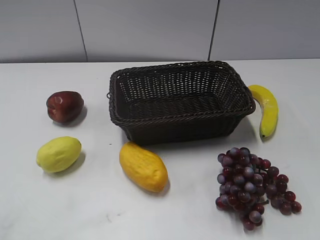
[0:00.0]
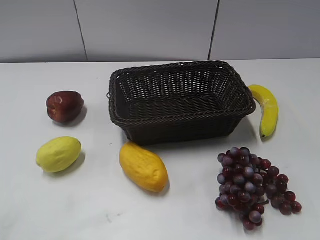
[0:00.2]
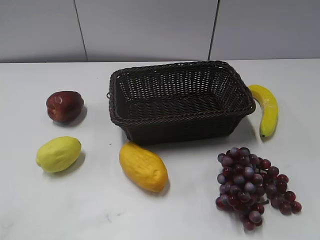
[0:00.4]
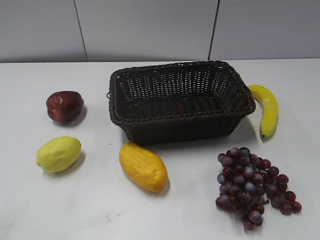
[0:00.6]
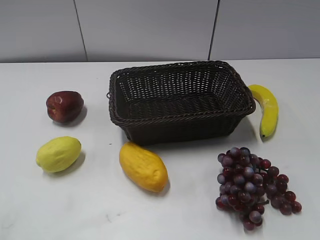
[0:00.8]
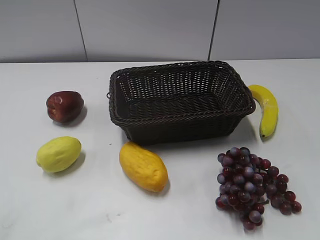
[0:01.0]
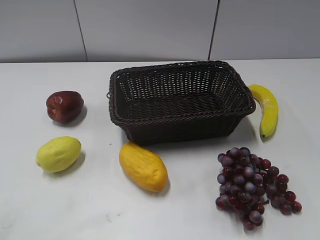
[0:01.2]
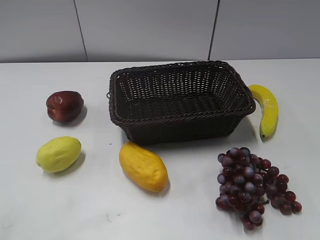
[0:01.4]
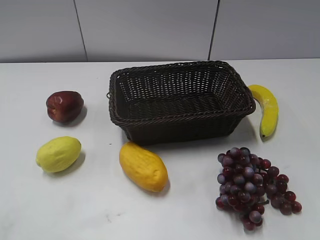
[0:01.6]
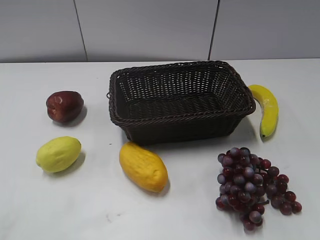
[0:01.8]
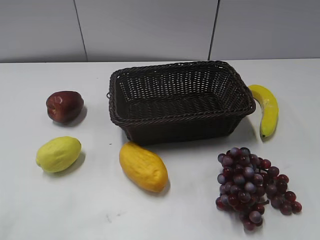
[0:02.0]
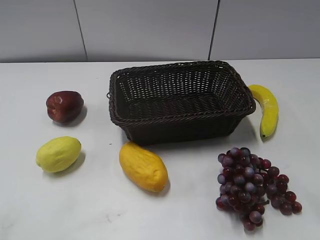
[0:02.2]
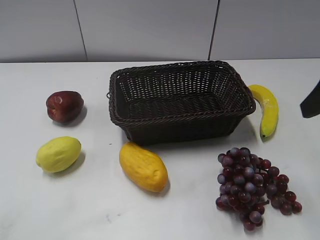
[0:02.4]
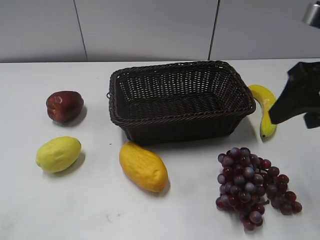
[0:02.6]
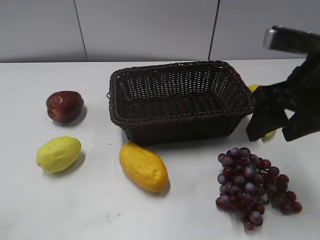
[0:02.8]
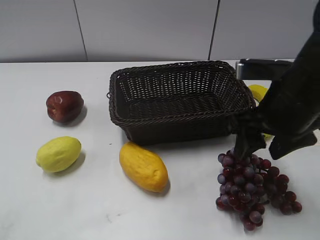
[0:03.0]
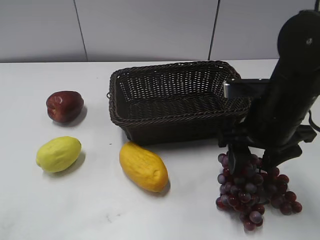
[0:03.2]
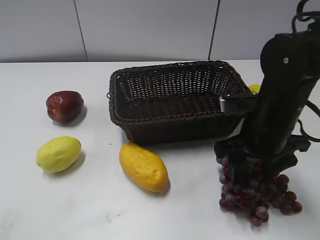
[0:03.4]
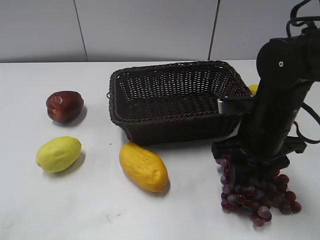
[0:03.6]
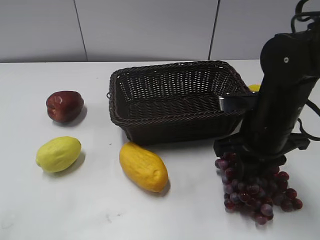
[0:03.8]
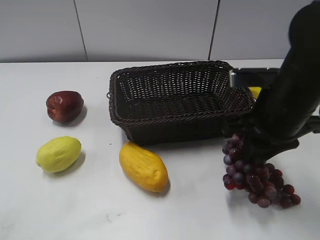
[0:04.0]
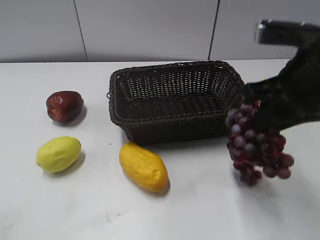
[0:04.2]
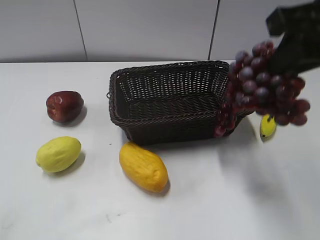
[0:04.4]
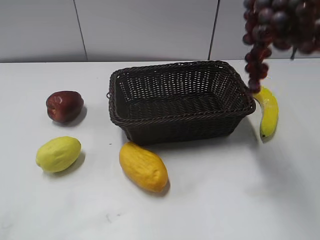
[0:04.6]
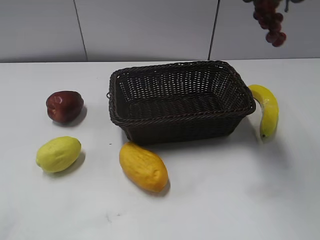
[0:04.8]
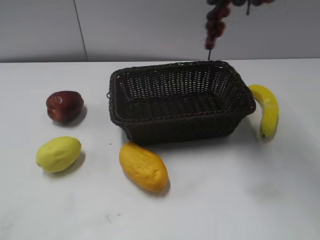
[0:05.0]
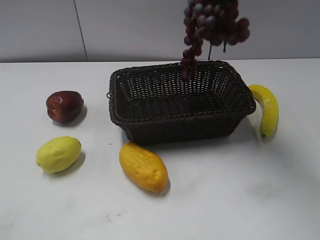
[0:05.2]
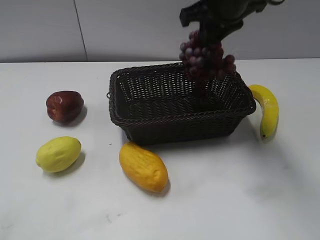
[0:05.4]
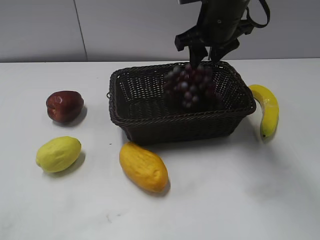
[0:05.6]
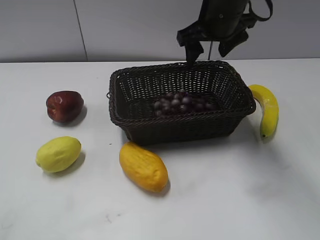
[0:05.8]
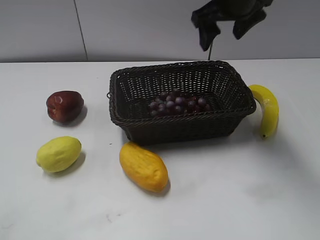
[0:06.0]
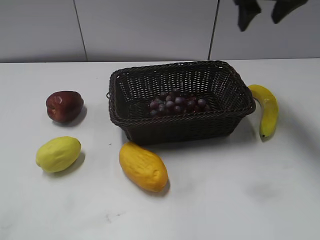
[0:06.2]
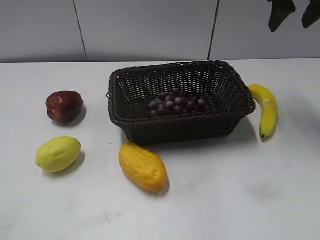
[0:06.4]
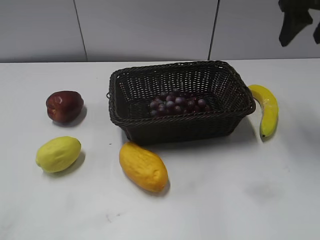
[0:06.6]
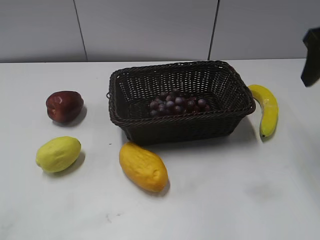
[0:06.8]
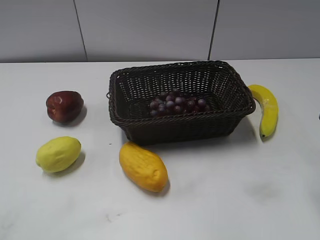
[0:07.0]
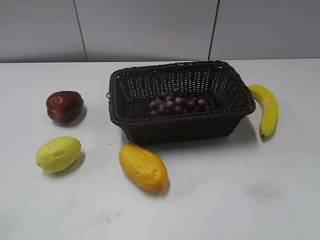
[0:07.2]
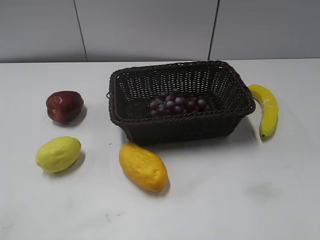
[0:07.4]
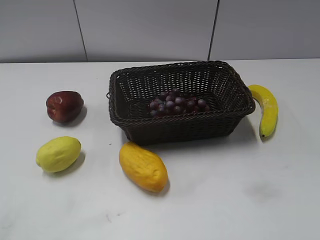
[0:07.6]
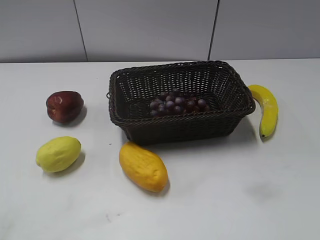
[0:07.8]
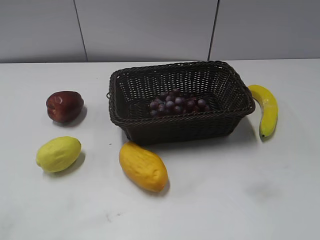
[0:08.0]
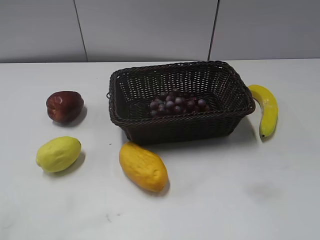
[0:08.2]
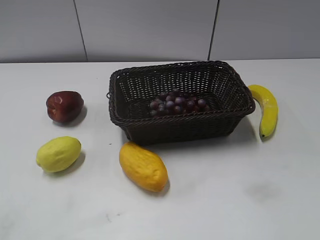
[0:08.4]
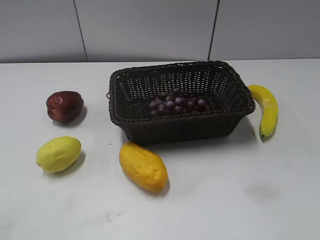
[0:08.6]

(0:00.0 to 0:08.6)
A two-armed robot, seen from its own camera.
Step, 0:02.4 - 0:03.8: Grasp the grape with right gripper.
Step, 0:04.0 - 0:05.6: Place the grape in the basket with right gripper.
0:01.4 - 0:02.8: The right gripper moves forward, to the left and downward, roughly 20 cm.
0:02.8 - 0:04.4: The right gripper moves upward, some 10 cm, and closes up.
0:04.4 - 0:05.8: The right gripper goes roughly 20 cm forward, downward and to the left, and opens its fingers.
0:05.8 - 0:07.2: The right gripper goes some 30 cm backward and to the right.
